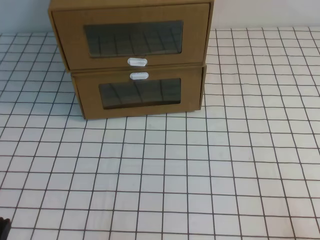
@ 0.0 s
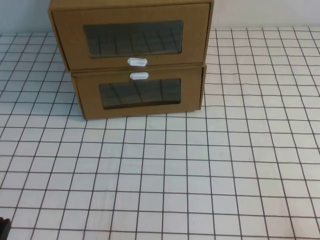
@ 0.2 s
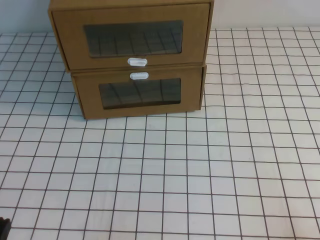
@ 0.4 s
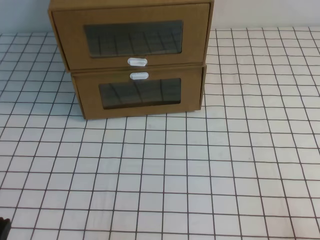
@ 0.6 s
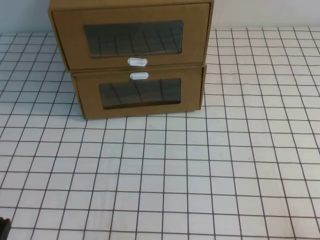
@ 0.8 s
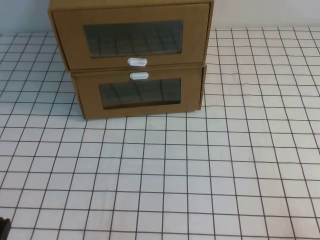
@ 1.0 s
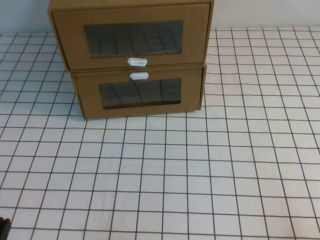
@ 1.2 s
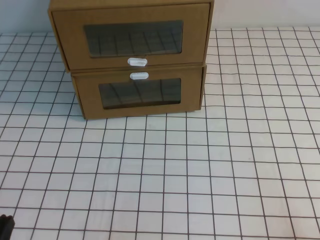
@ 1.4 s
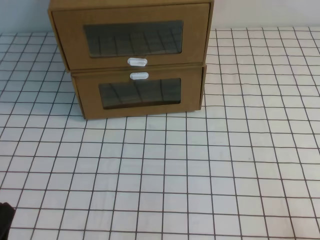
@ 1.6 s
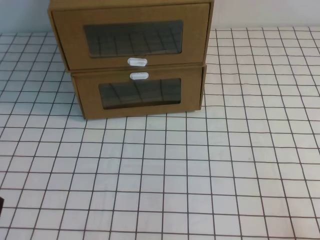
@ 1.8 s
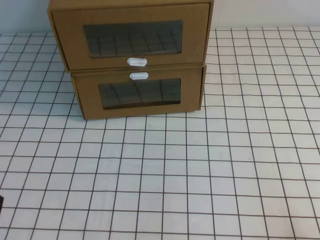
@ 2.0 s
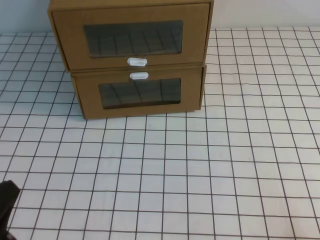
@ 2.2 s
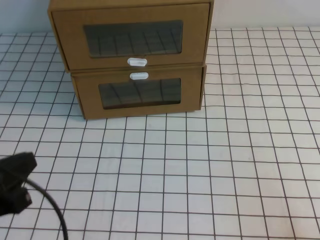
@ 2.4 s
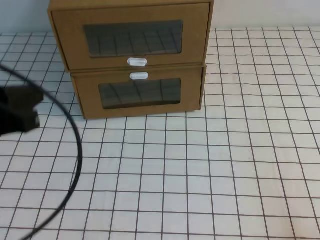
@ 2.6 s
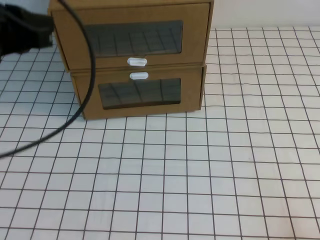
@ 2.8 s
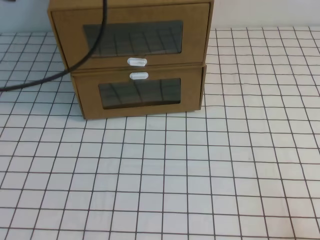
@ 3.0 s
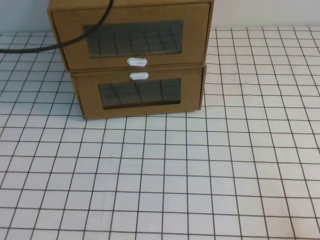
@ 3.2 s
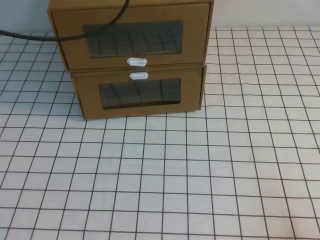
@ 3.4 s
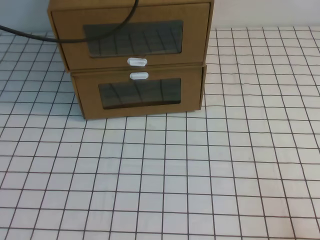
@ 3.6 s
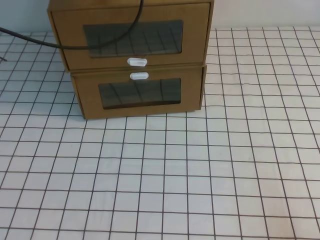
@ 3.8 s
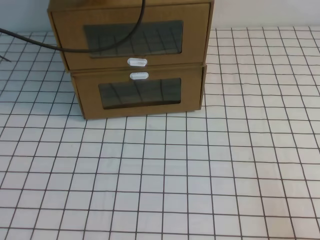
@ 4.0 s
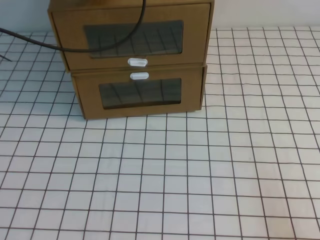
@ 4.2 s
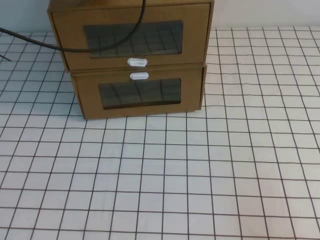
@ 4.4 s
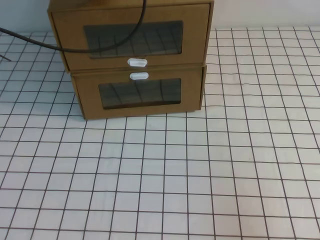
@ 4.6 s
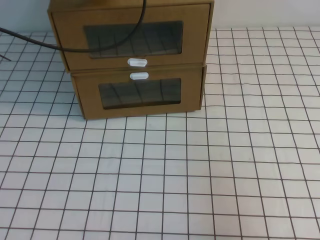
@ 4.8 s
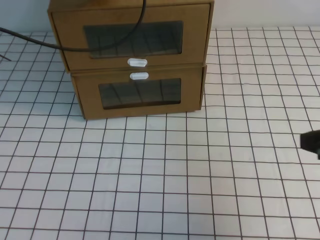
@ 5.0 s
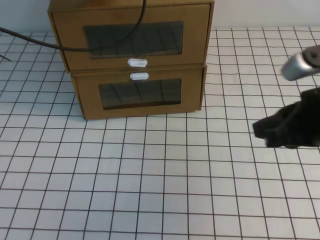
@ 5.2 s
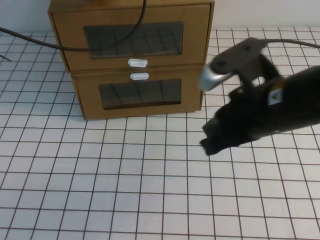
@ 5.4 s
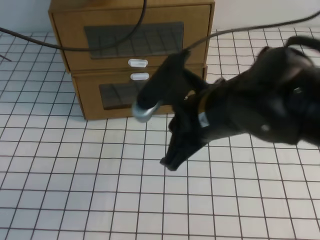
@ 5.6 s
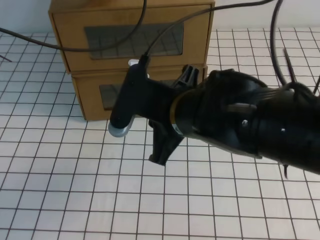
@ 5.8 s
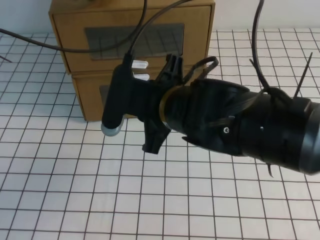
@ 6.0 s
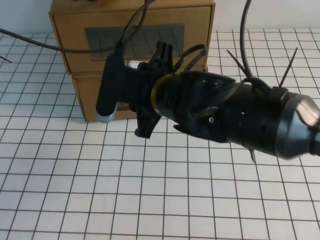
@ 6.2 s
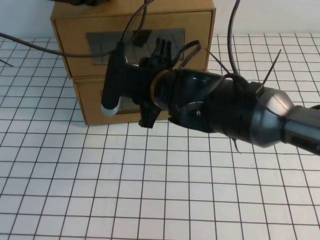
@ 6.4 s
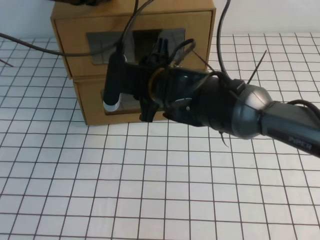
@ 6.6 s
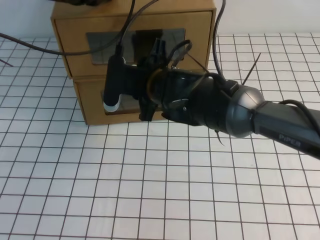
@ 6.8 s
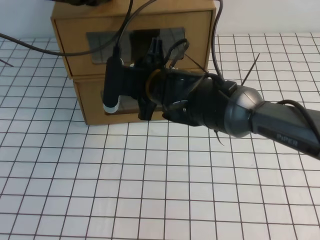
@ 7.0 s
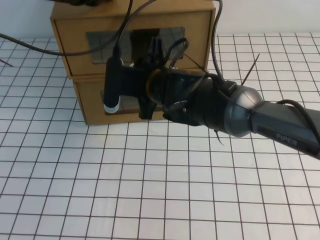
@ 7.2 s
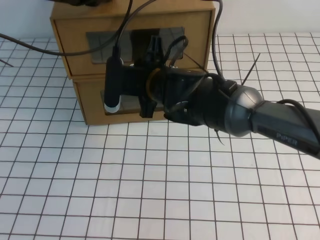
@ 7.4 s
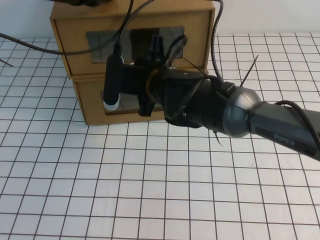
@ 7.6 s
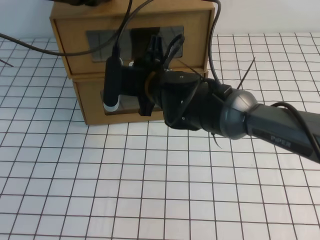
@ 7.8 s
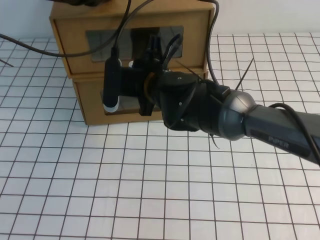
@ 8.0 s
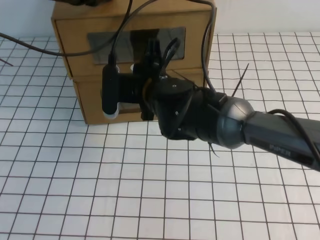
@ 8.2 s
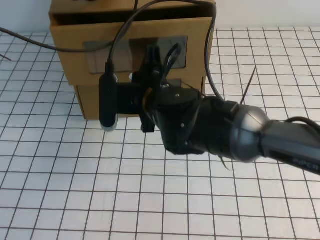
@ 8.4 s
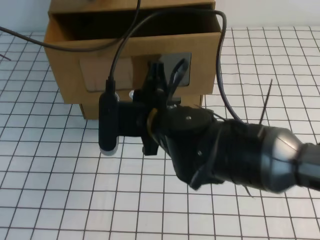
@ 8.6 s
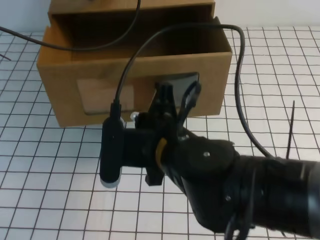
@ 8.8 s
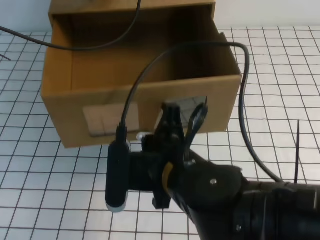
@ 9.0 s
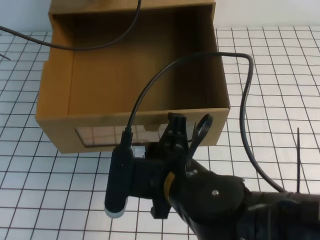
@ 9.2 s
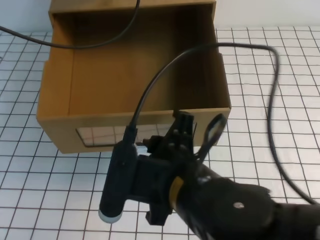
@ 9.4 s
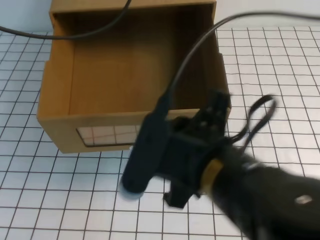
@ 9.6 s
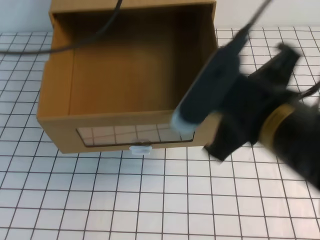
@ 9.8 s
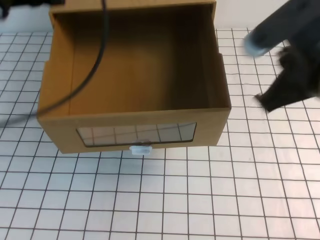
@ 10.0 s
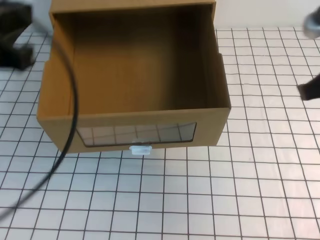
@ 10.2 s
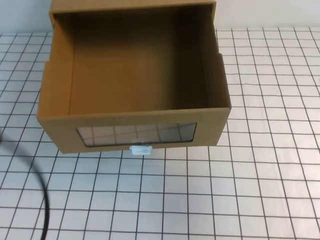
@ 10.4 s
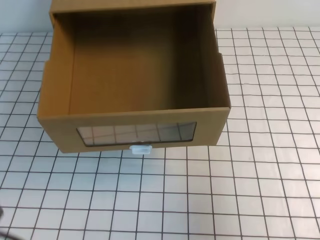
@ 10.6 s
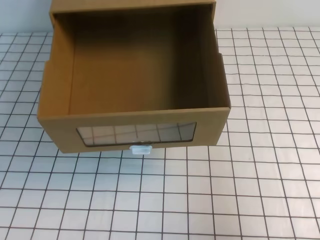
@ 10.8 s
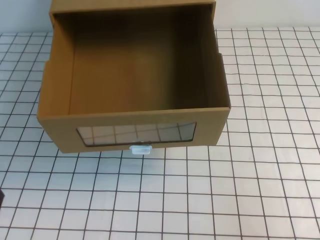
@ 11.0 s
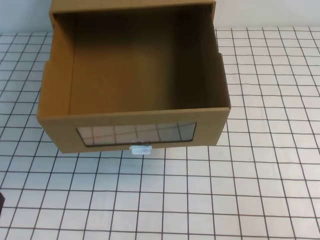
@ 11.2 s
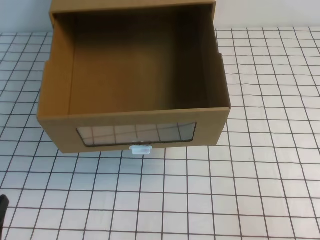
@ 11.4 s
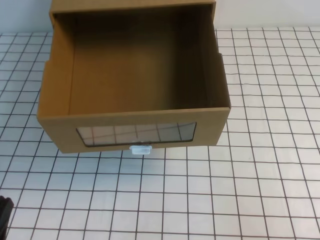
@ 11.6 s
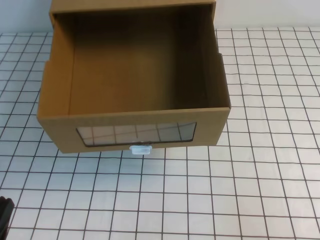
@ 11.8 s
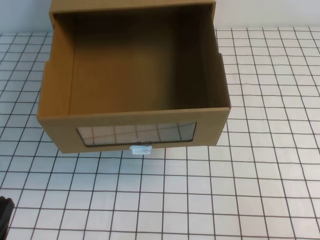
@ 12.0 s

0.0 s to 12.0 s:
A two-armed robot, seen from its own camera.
Task of the whole recording: open the shoebox on the white tablecloth.
1.6 to 3.0 s: The left gripper is displaced upward and forward by about 35 cm.
3.0 to 4.4 s: The left gripper heads forward, covering roughly 15 cm.
4.4 to 6.0 s: The right gripper shifts about 35 cm to the left and forward, and opens.
6.0 to 7.6 s: The right gripper shifts approximately 10 cm forward, and opens, then closes again.
7.6 to 9.0 s: The right gripper moves backward, approximately 15 cm, and closes.
9.0 to 10.4 s: The left gripper moves backward, some 30 cm, while the right gripper goes some 25 cm to the right, and opens, then closes once more.
10.4 to 12.0 s: The right gripper shifts approximately 20 cm backward and downward. Meanwhile the left gripper travels downward and backward by roughly 20 cm.

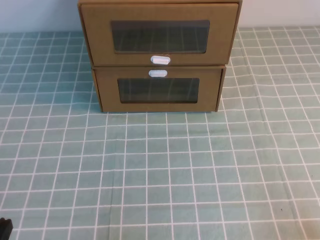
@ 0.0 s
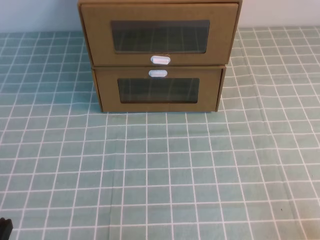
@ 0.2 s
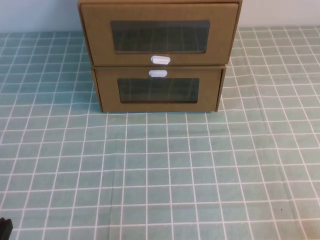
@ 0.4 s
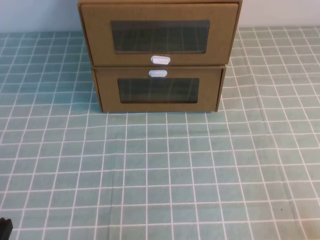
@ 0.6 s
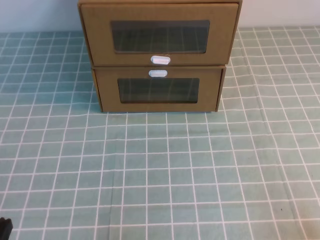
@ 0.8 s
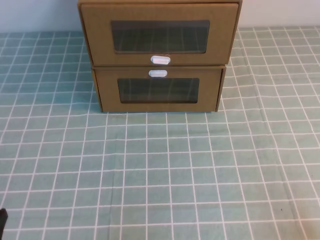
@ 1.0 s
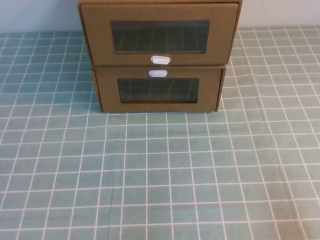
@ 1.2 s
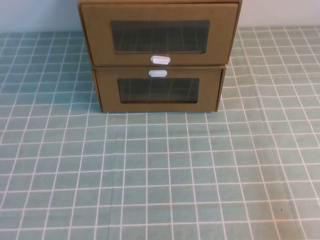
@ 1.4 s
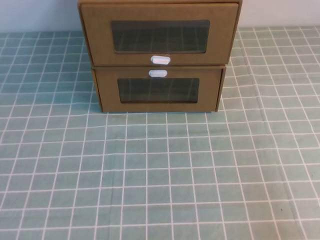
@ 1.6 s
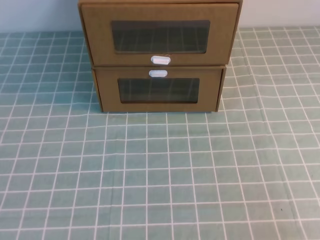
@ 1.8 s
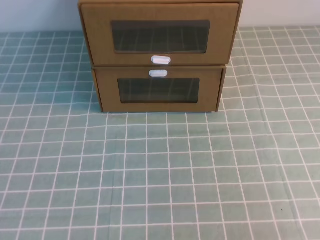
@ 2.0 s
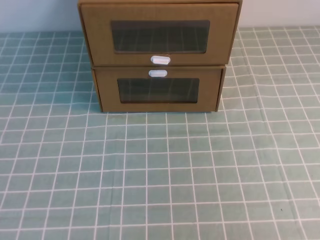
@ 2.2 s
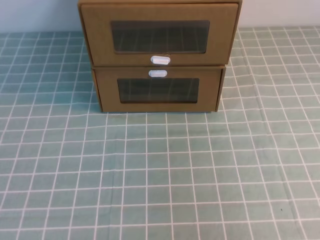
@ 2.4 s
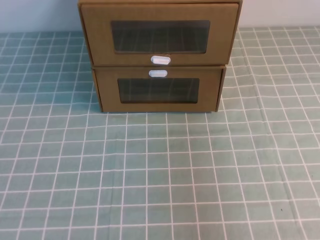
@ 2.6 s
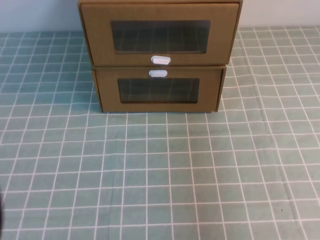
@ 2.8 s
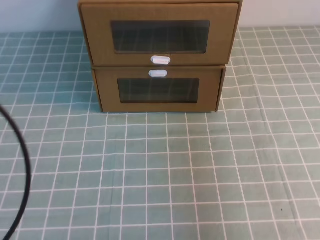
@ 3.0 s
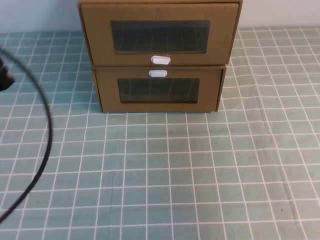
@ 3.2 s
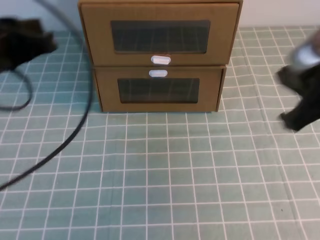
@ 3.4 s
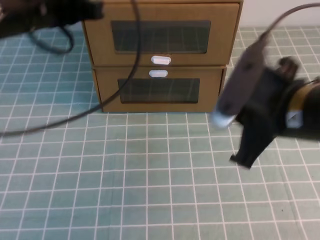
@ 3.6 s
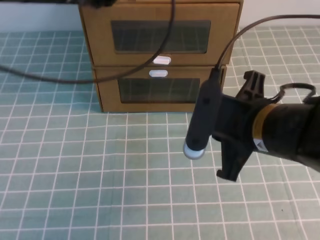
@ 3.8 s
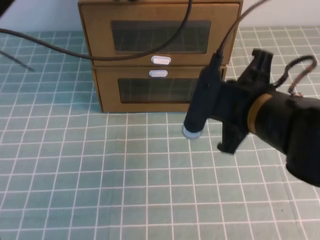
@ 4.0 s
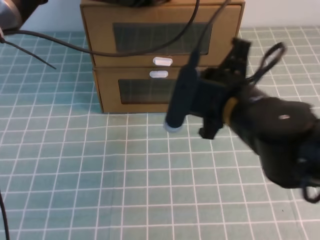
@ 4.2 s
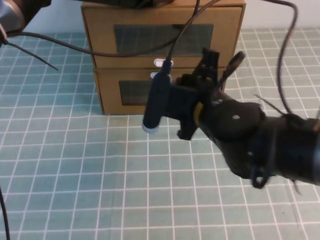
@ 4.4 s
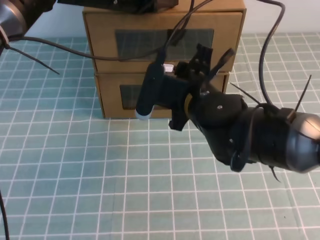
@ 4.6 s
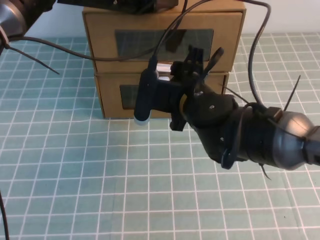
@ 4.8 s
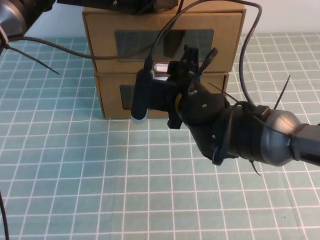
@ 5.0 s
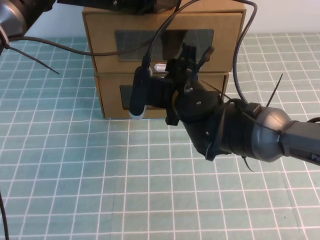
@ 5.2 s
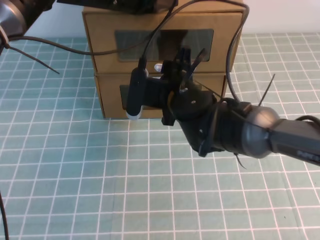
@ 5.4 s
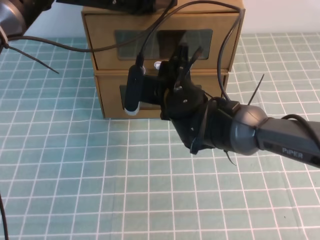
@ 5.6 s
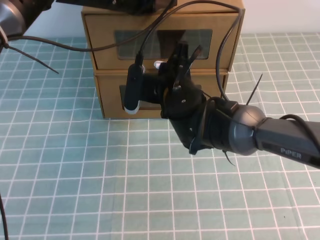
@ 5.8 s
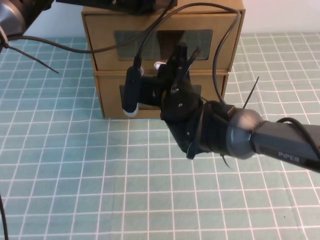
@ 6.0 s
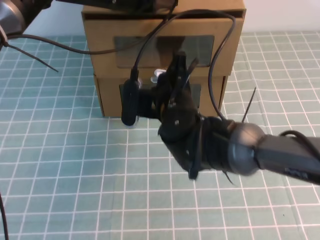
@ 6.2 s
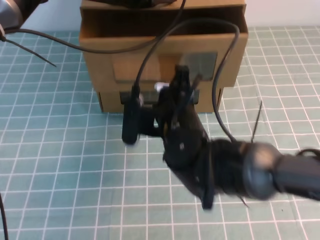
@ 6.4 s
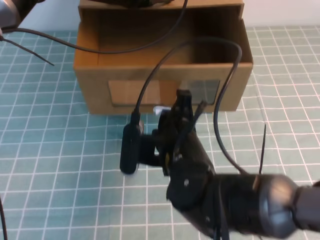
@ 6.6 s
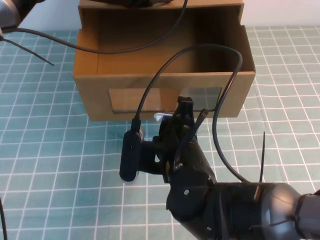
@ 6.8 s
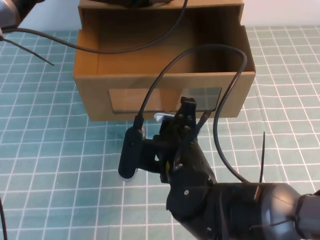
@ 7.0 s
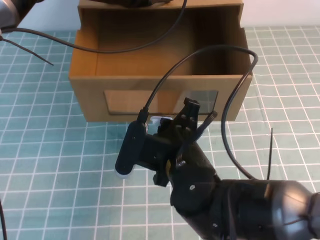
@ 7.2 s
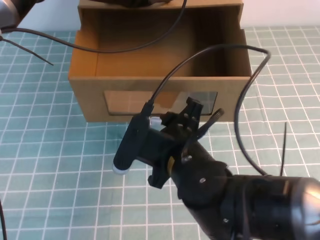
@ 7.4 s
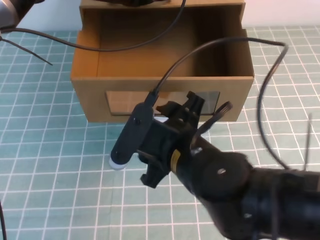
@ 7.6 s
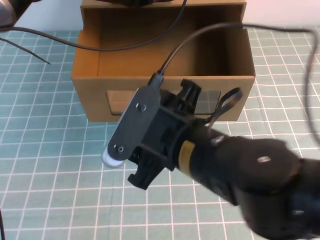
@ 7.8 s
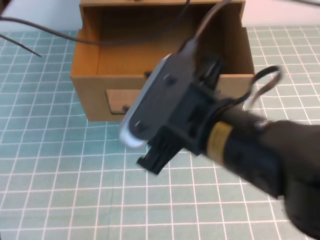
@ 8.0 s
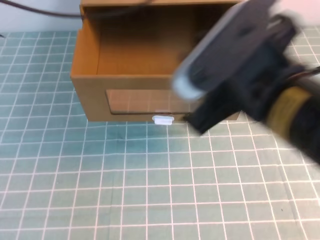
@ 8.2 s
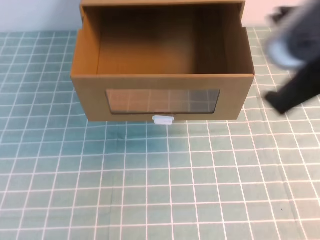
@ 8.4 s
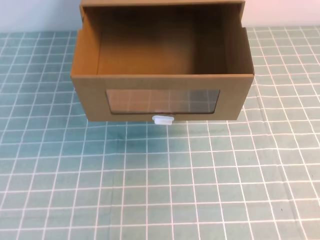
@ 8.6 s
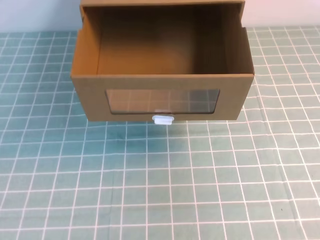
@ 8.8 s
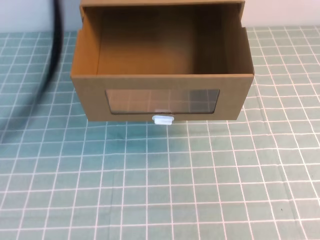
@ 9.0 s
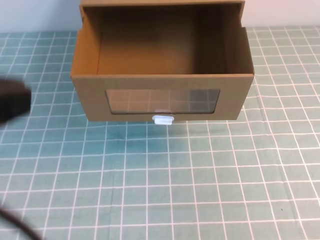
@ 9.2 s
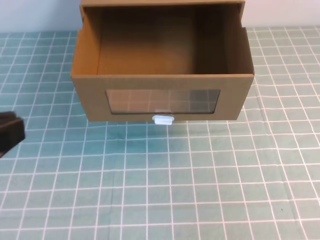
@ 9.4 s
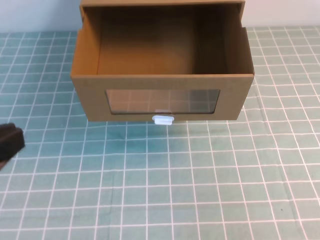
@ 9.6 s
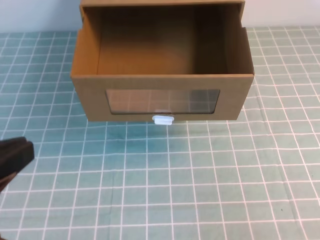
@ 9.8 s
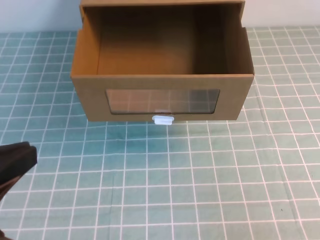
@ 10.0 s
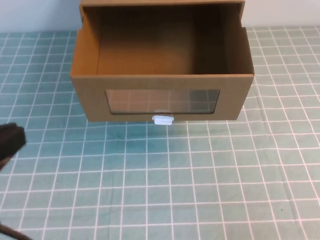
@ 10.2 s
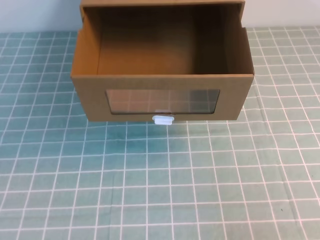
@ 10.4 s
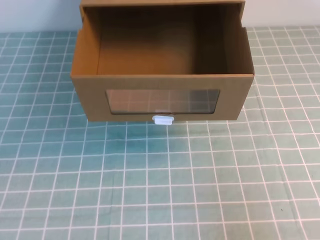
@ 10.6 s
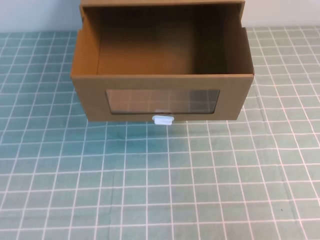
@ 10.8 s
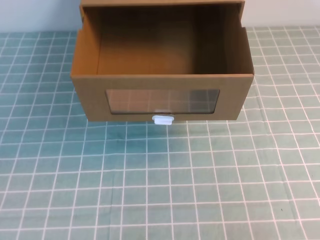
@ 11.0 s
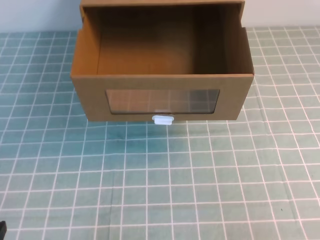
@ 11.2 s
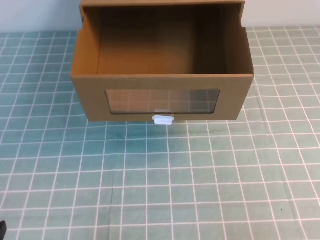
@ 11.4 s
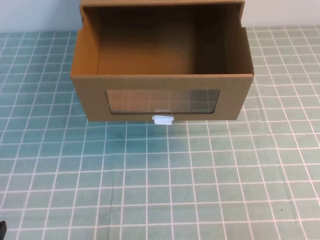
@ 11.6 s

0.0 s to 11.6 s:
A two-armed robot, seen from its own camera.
Task of the whole recording: open the shoebox on the cyan tablecloth.
1.4 to 2.8 s: Both grippers move upward, roughly 20 cm.
2.8 to 4.4 s: The right gripper heads to the left, forward and downward, covering some 35 cm. Meanwhile the left gripper travels forward and to the right by approximately 40 cm.
4.4 to 5.8 s: The right gripper moves forward and to the left, some 10 cm, and opens, then closes once more.
5.8 to 7.2 s: The right gripper heads backward, covering approximately 15 cm.
7.2 to 8.8 s: The left gripper goes some 30 cm backward and upward; the right gripper moves to the right, upward and backward, about 35 cm, and opens and closes again.
8.8 to 10.2 s: The left gripper travels downward and backward by approximately 25 cm. Meanwhile the right gripper shifts about 15 cm downward.
10.2 to 11.6 s: The left gripper goes roughly 20 cm downward.
